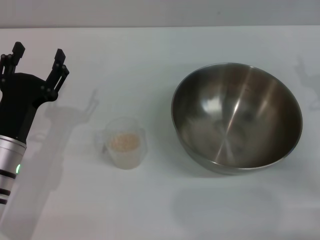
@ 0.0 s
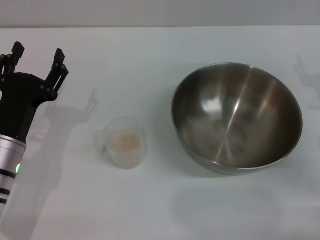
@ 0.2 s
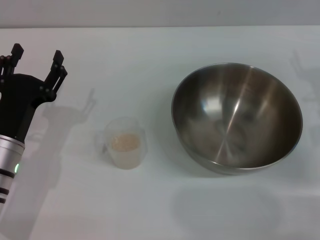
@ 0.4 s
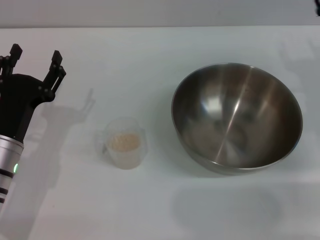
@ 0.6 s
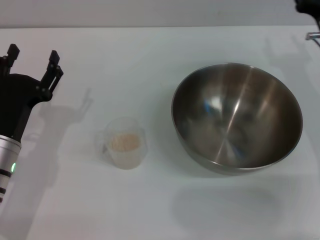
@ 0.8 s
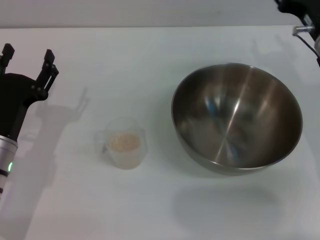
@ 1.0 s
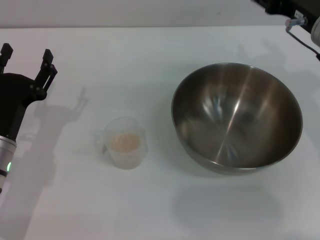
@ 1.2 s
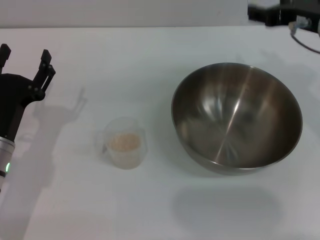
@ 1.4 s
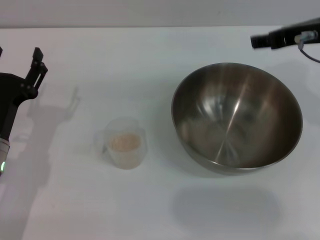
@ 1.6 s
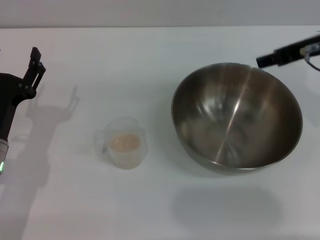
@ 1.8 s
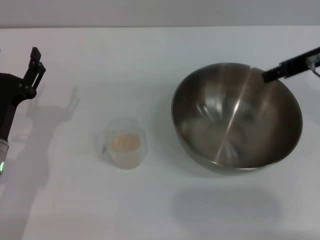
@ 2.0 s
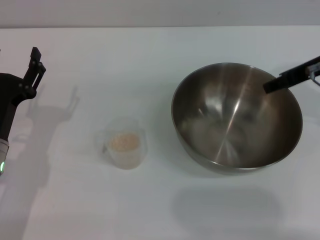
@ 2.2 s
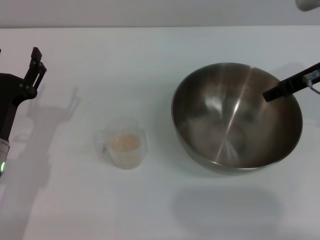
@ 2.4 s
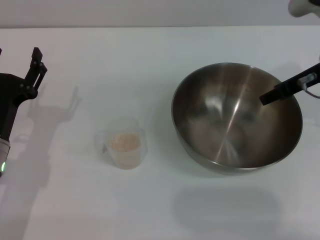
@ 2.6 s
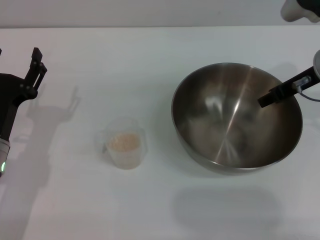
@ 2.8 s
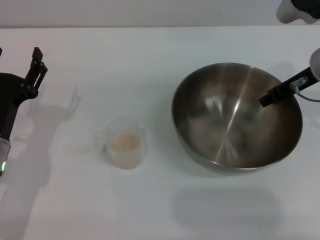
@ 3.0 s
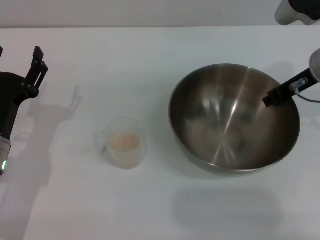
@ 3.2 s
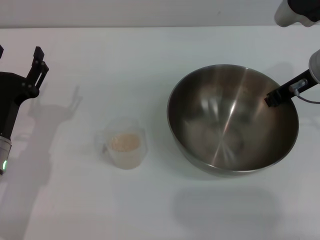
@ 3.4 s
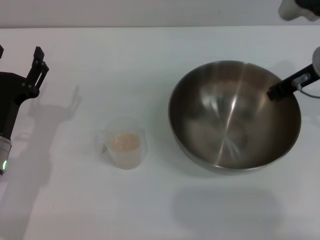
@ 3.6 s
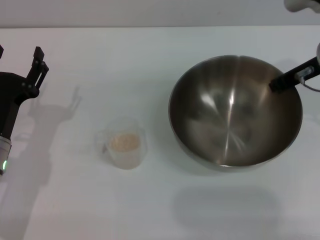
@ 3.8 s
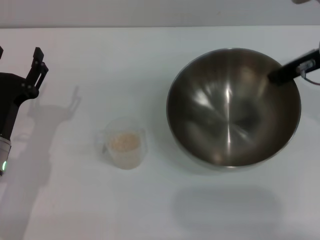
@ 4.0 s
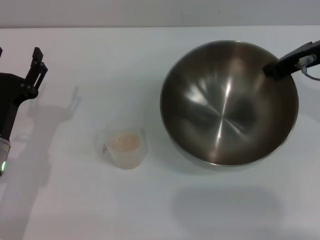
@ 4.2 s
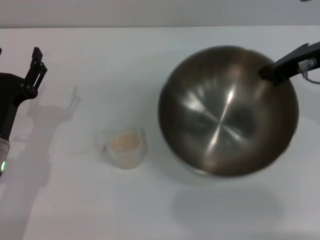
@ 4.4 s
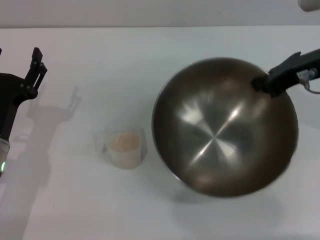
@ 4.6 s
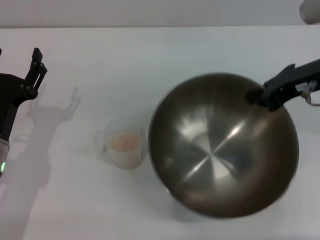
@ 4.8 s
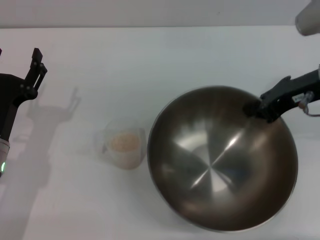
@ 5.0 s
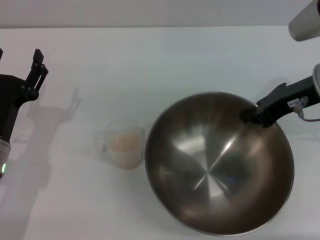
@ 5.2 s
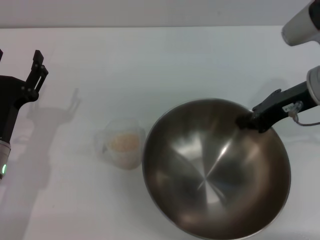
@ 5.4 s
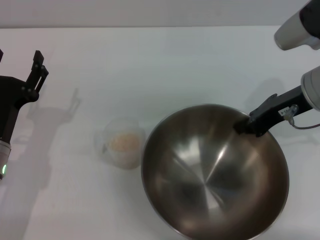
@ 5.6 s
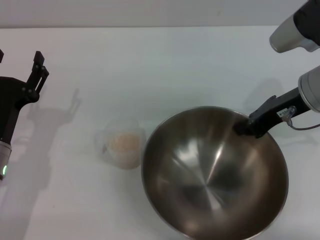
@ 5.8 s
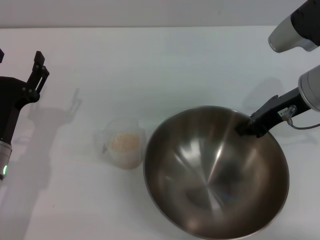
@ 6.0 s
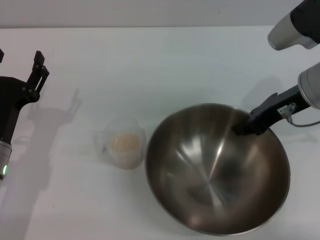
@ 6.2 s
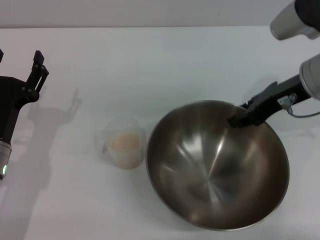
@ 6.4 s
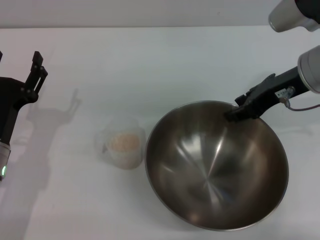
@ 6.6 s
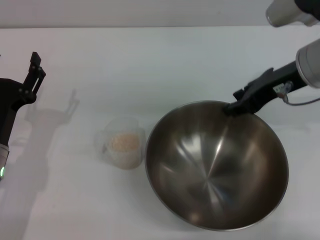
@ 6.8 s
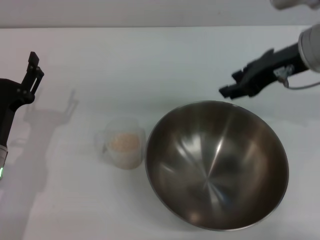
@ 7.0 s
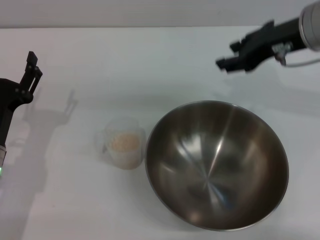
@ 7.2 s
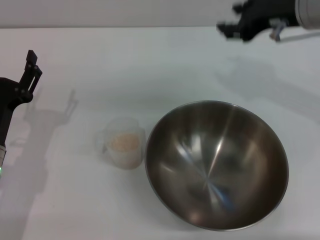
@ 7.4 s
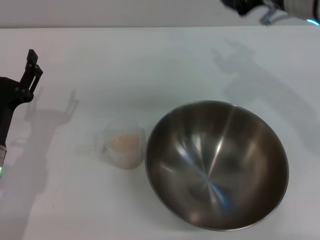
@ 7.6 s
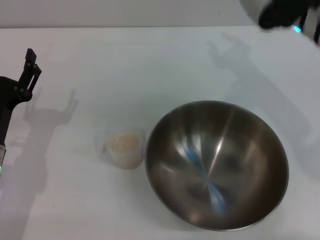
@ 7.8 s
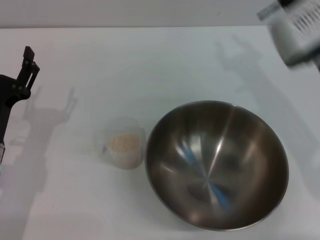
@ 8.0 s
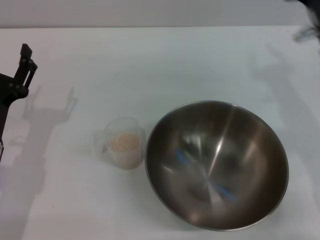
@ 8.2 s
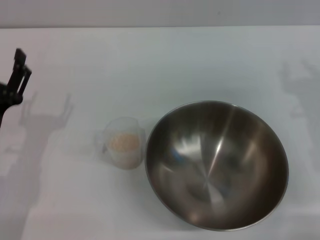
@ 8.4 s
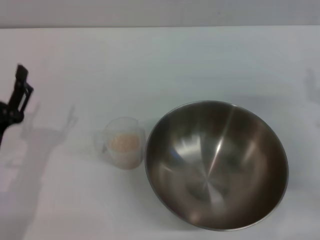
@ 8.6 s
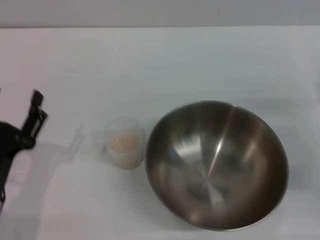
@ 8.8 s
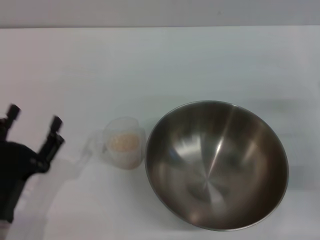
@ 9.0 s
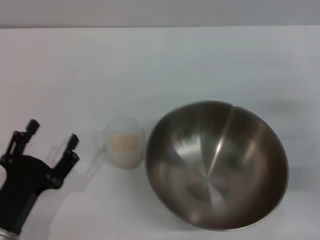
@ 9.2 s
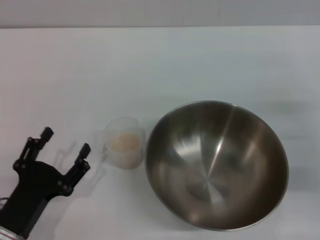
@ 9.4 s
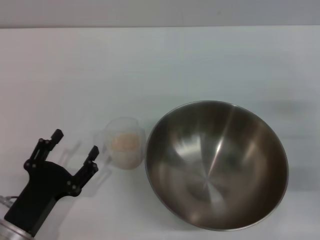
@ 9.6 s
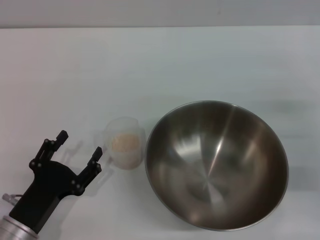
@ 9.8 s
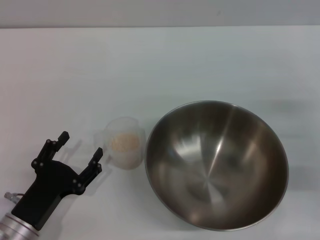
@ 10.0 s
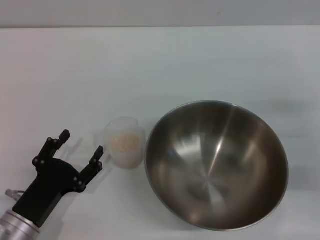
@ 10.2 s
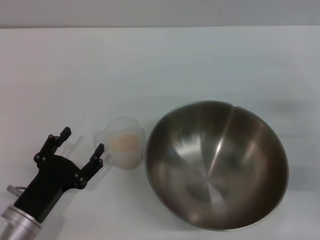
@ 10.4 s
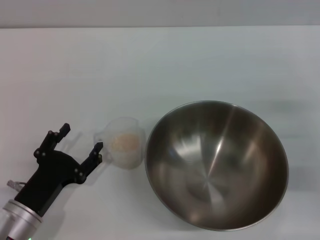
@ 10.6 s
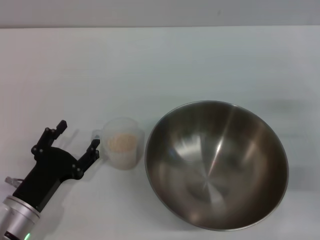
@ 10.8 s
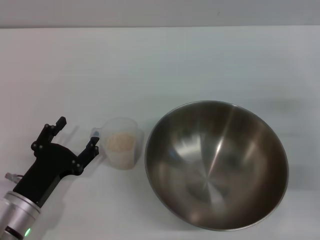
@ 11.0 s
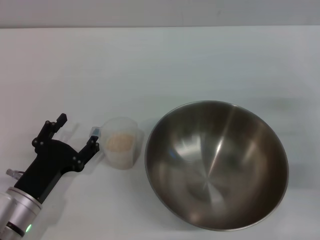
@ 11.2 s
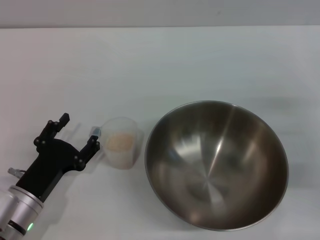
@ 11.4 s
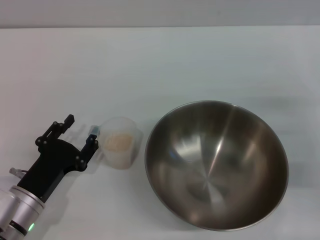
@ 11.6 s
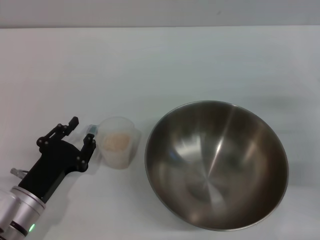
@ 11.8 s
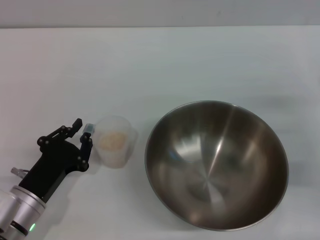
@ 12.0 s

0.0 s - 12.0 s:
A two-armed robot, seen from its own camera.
Task of the whole recording: Place the bowl in the middle of the table with one hand and pour the rice from the grain cup into it with the other hand.
Step, 0.0 s - 4.2 s: Pick up the bowl with the right gripper.
Step, 4.4 s - 7.0 s: Place the bowl in the center of view with the right gripper.
0.0 s - 1.6 s: The right gripper shifts about 15 cm upward and to the left.
1.6 s - 3.0 s: The right gripper shifts roughly 5 cm downward.
3.0 s - 4.4 s: The right gripper closes its fingers.
6.0 s - 7.6 s: The right gripper moves upward, some 5 cm, and opens.
7.6 s - 9.0 s: The right gripper moves downward, to the right and backward, about 25 cm; the left gripper moves backward, about 10 cm.
9.0 s - 10.4 s: The grippers move only a little.
10.4 s - 12.0 s: The left gripper closes up.

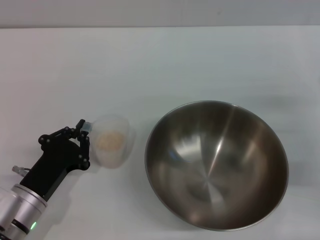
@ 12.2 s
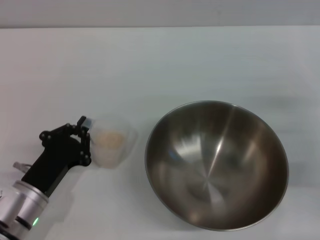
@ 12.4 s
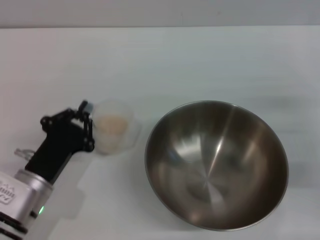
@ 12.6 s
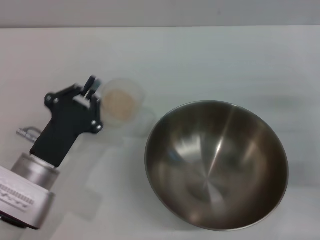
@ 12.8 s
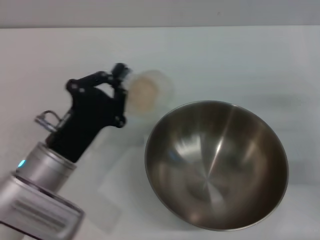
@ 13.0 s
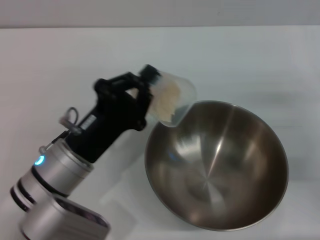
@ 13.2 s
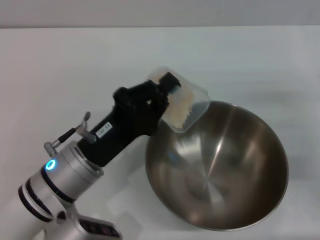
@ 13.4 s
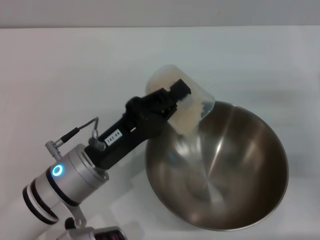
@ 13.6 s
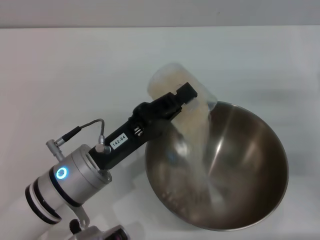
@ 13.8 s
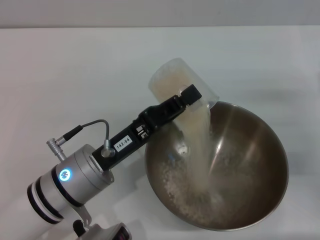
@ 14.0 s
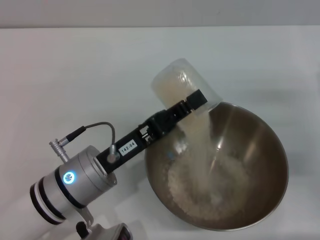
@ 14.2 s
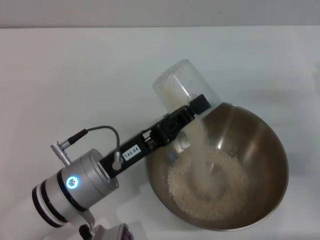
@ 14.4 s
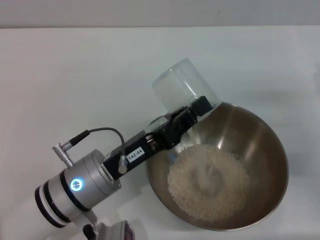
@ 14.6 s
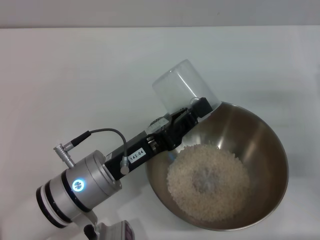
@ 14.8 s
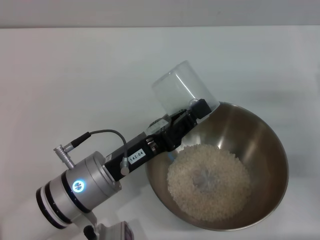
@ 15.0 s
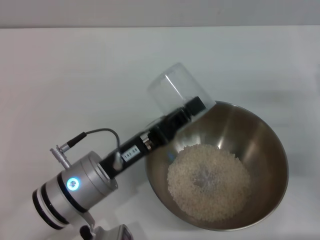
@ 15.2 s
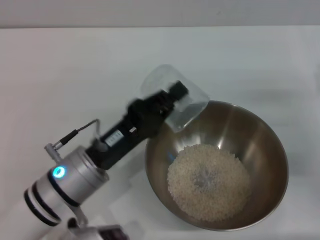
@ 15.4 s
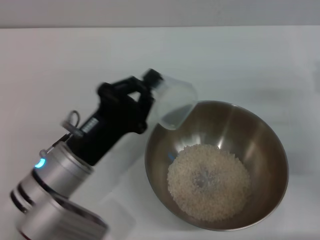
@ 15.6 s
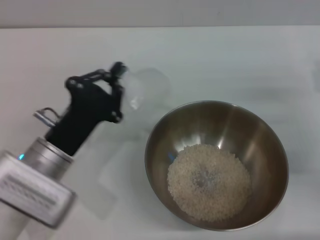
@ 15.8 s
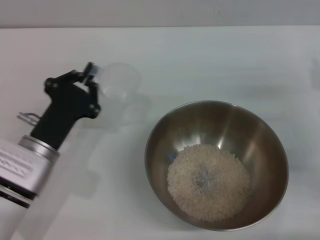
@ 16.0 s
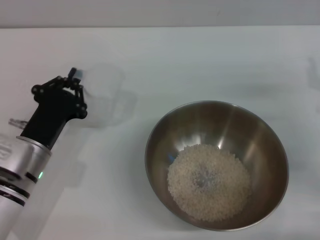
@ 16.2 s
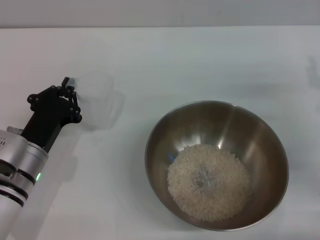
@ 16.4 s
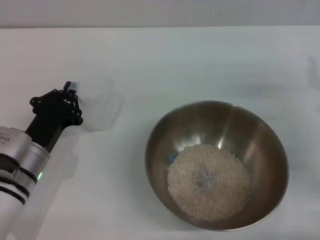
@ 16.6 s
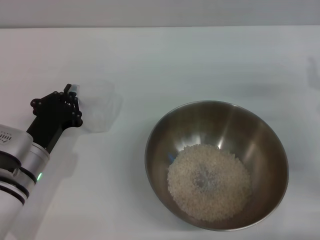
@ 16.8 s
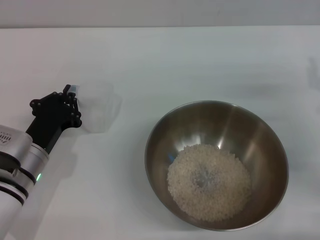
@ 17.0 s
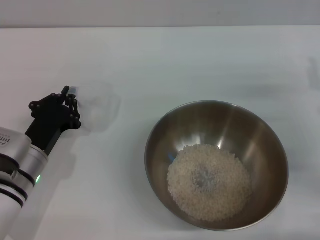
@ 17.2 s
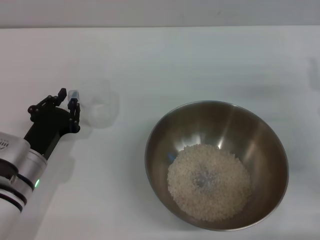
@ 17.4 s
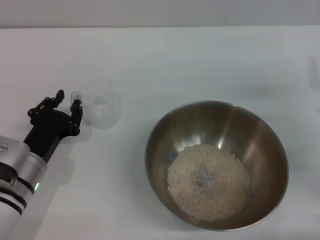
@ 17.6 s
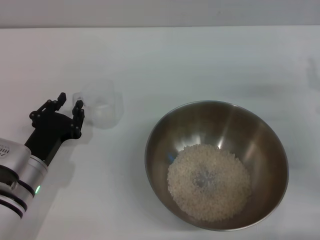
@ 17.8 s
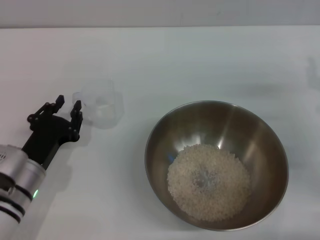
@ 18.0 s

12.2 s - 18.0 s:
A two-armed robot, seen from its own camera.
Task of the whole recording: Place the bowl in the middle of the table with one hand and pour the rice from the grain cup into it with the other hand.
Step, 13.0 s - 15.4 s: Pour the rice from the cup into the bowl with the left gripper.
Step, 15.6 s - 17.6 s: Place the cup on the table with the left gripper.
12.2 s - 13.6 s: The left gripper heads to the right and upward, covering about 10 cm.
15.0 s - 16.6 s: The left gripper moves to the left, roughly 10 cm.
16.6 s - 18.0 s: The grippers make only small movements.
